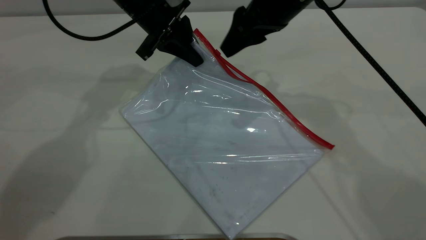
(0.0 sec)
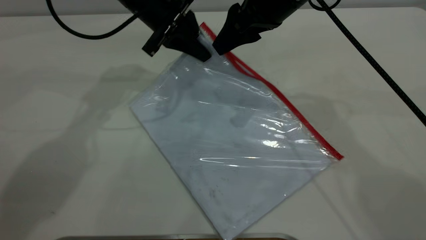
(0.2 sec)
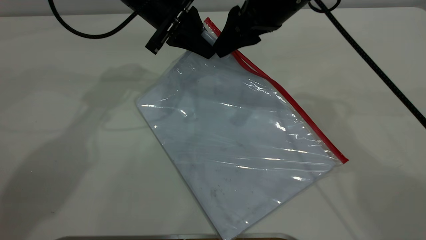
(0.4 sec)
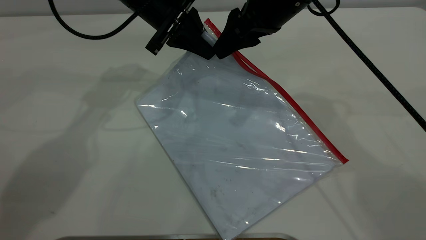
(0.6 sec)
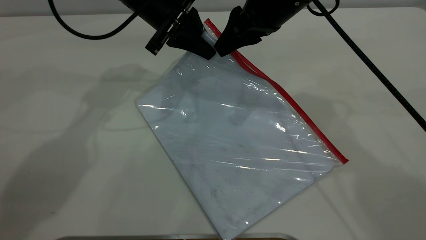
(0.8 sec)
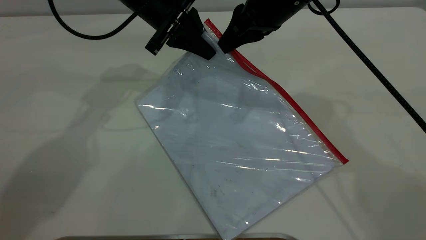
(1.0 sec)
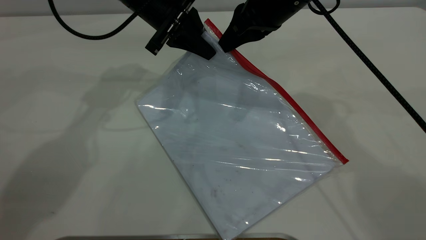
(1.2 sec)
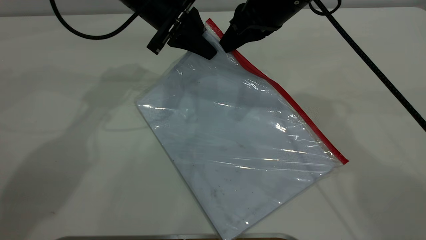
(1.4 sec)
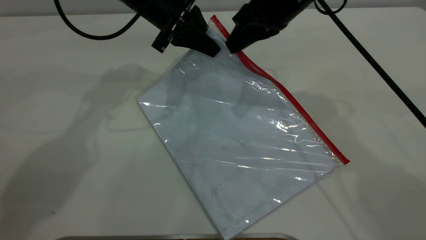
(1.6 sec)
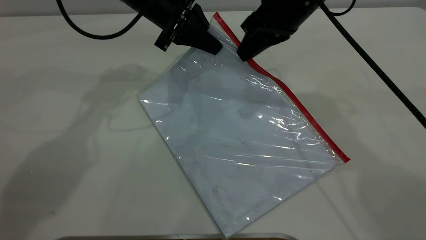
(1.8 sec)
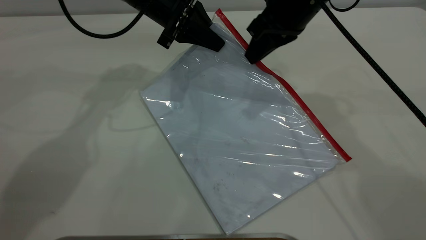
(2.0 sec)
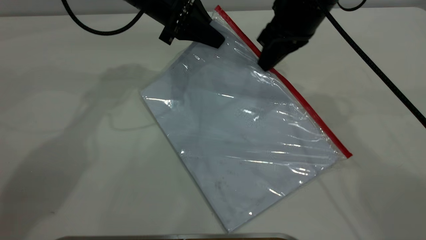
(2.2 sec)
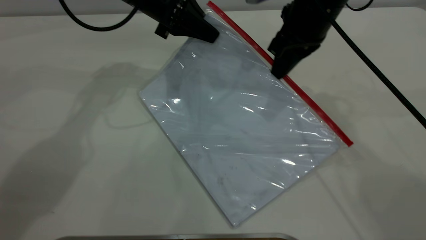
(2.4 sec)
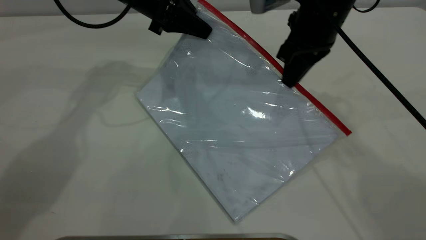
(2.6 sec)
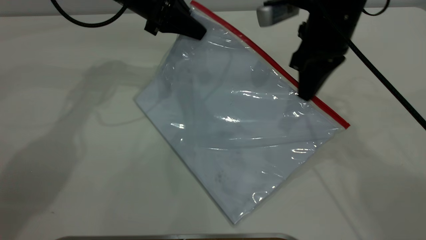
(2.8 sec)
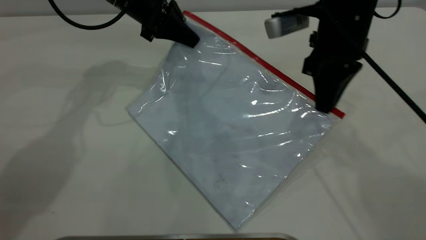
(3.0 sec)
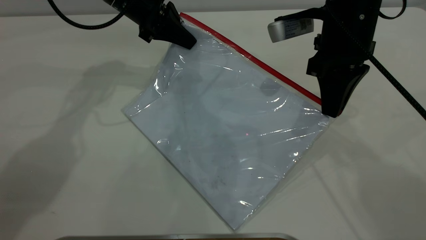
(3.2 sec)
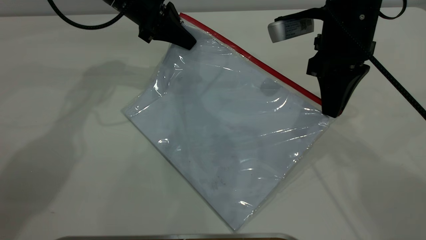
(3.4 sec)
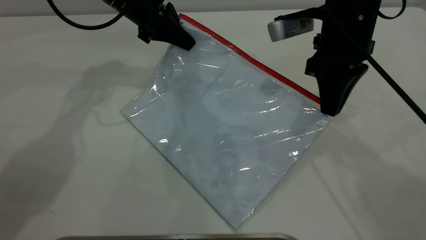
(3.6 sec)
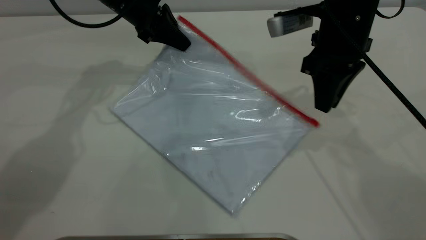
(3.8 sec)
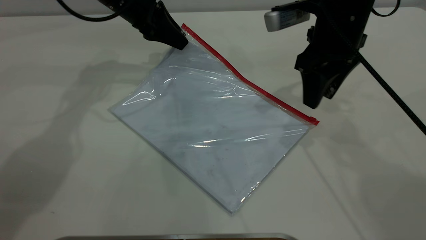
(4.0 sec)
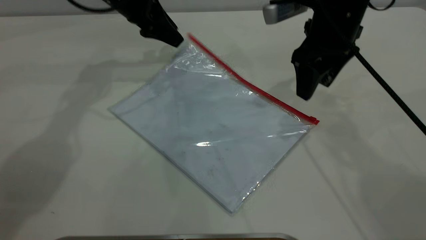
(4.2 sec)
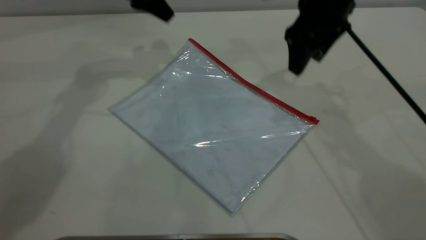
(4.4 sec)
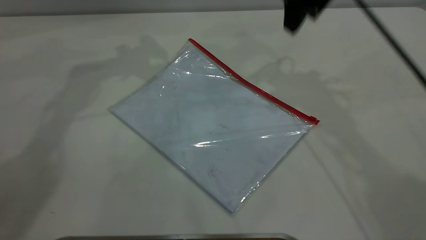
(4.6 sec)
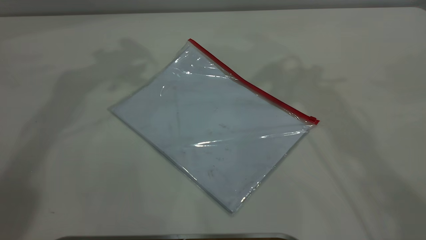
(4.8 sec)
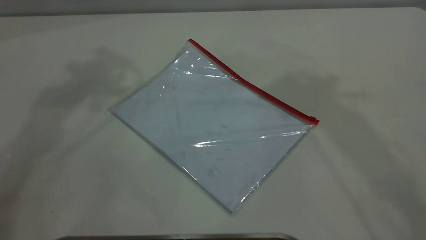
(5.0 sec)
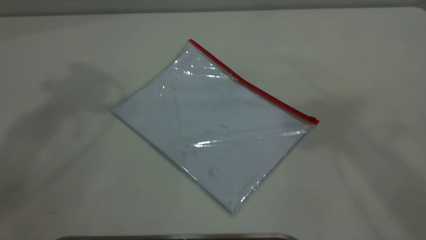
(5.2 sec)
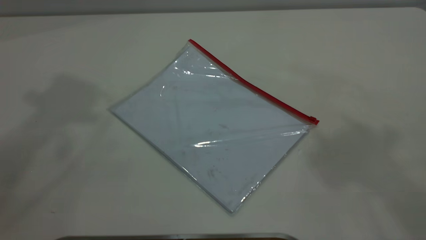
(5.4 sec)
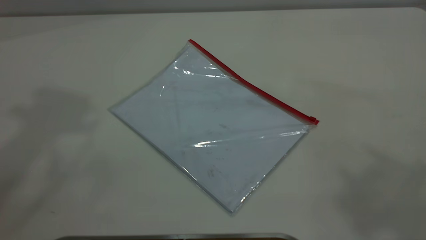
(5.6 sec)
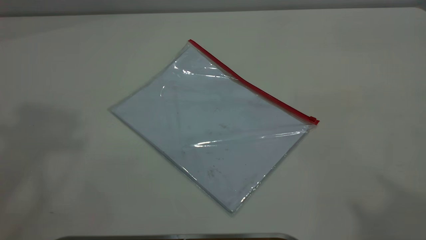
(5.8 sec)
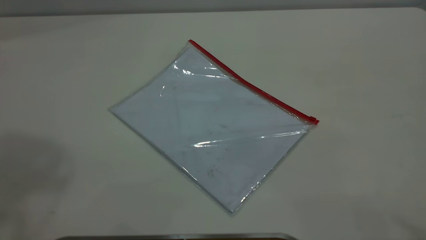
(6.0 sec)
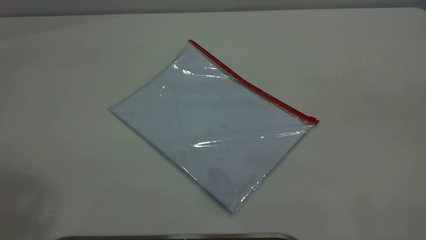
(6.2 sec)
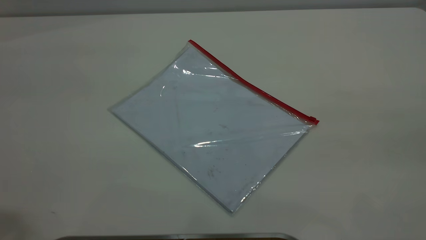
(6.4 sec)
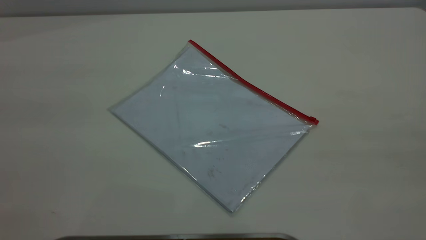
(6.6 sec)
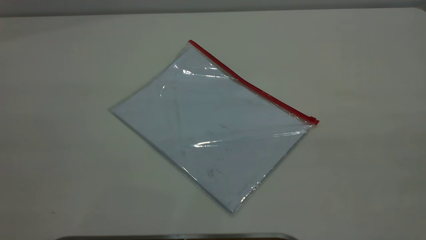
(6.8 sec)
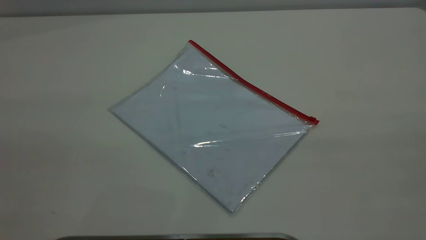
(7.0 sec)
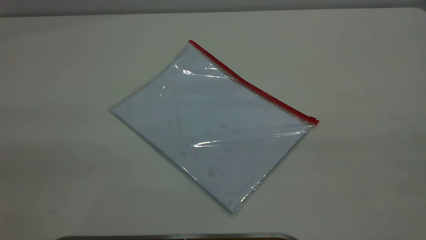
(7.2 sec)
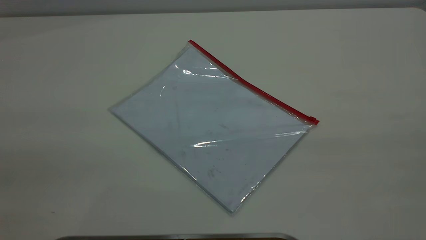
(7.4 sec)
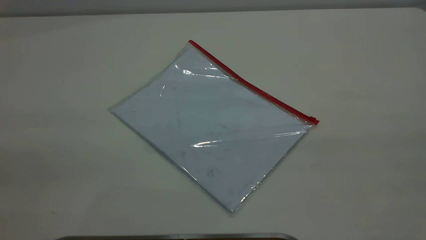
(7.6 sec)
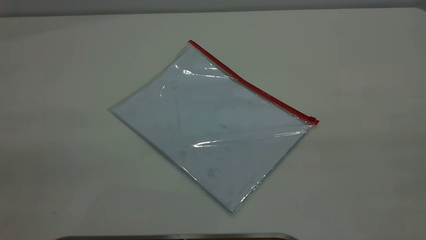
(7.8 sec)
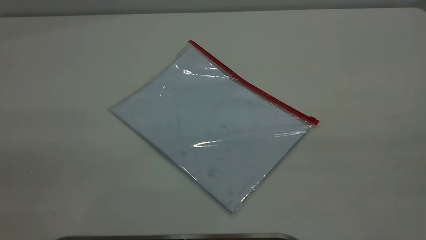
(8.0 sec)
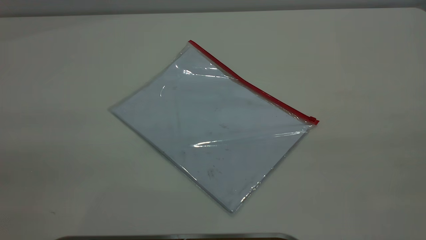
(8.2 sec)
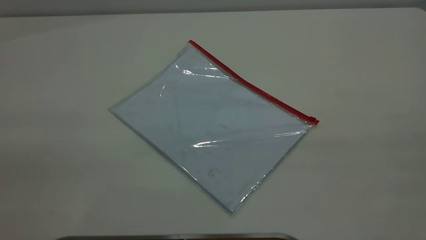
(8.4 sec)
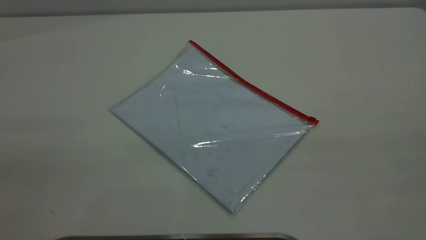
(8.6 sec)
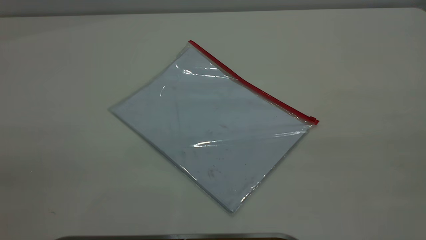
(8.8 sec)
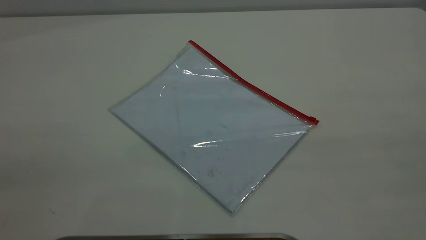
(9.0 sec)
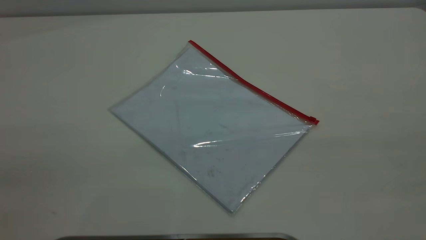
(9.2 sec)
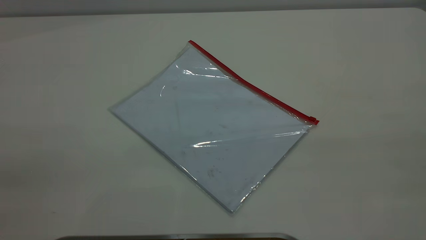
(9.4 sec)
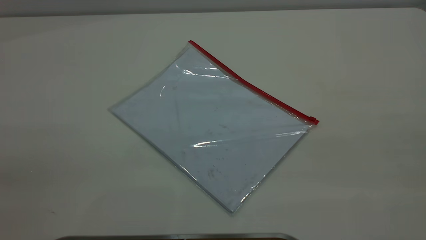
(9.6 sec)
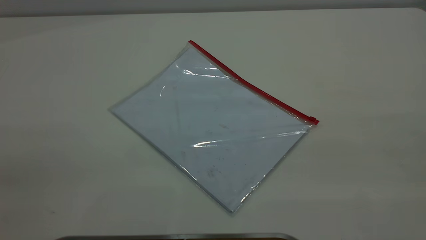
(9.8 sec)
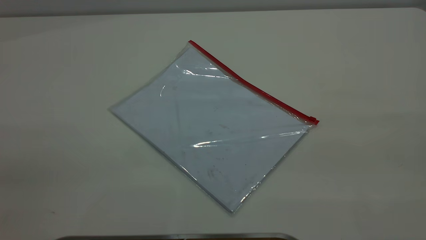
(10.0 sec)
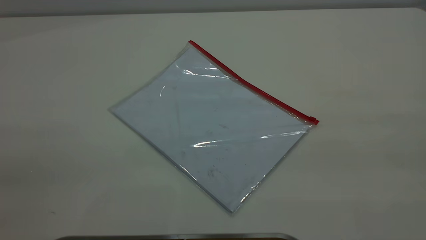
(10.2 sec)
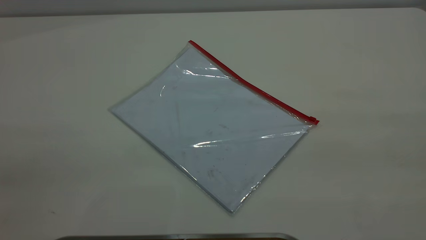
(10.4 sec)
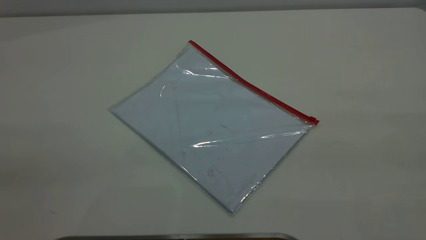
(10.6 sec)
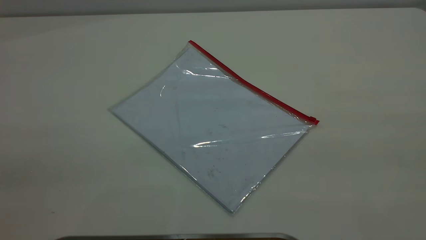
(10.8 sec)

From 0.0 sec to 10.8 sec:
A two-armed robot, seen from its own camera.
Step, from 0.0 sec to 3.8 sec: Pulling up the zipper on the transparent plastic bag with the right gripper to close it.
Step, from 4.0 sec to 4.4 sec: Place the transparent plastic bag.
From 0.0 sec to 1.6 sec: The right gripper closes up.
From 1.6 sec to 3.0 sec: The right gripper moves roughly 5 cm.
From 3.0 sec to 4.6 sec: The right gripper shifts about 10 cm upward and forward, and opens its fingers. Meanwhile the left gripper heads upward, covering some 15 cm, and opens.
From 4.6 sec to 6.2 sec: The right gripper is displaced backward and upward by about 40 cm.
